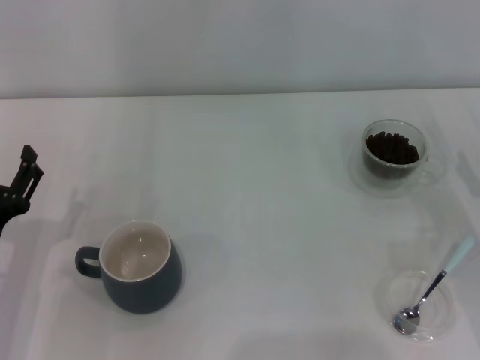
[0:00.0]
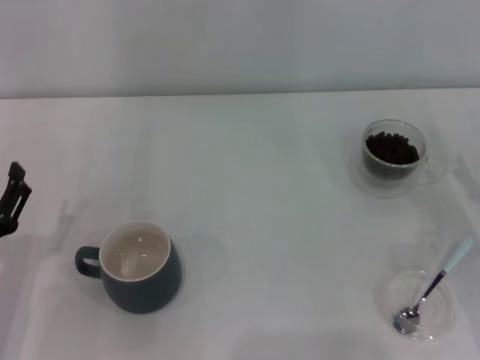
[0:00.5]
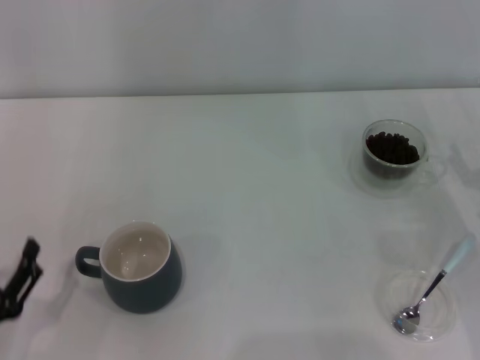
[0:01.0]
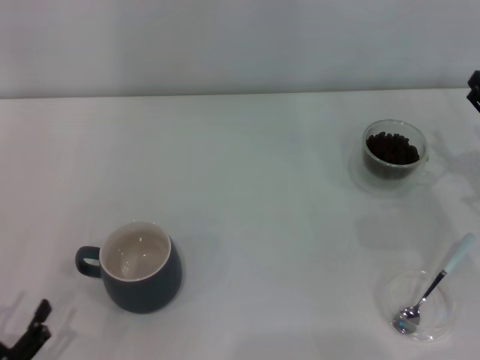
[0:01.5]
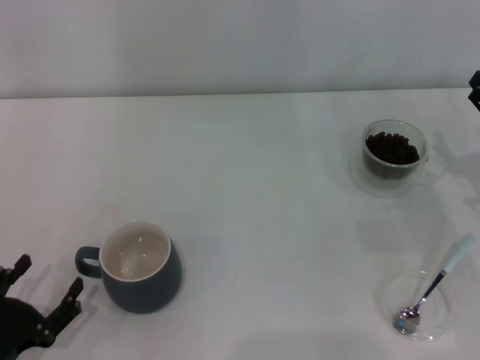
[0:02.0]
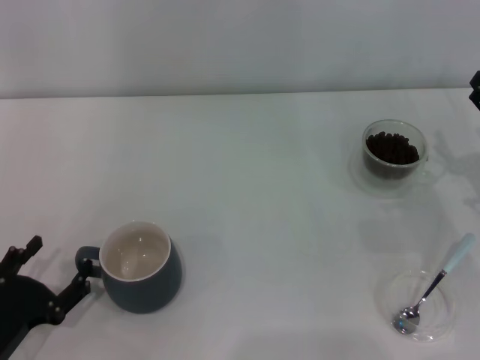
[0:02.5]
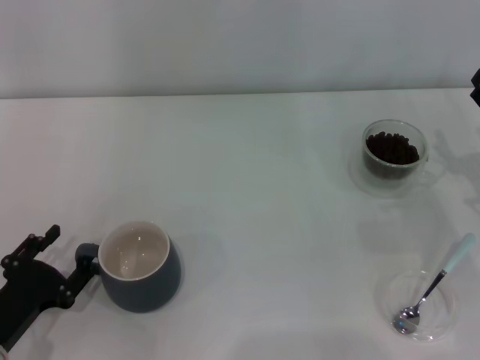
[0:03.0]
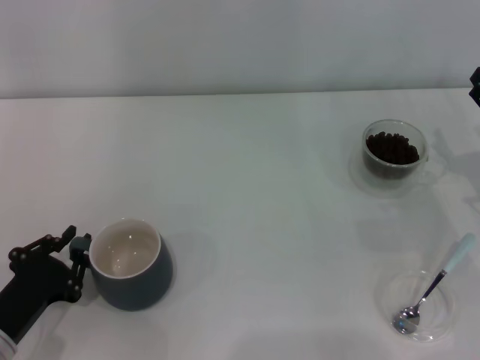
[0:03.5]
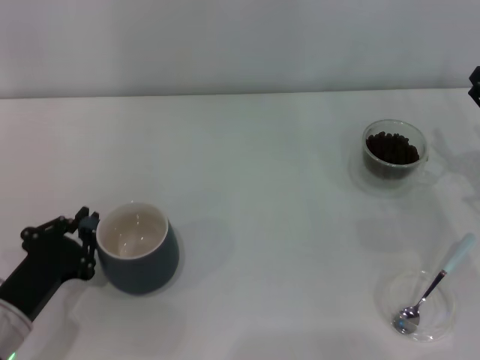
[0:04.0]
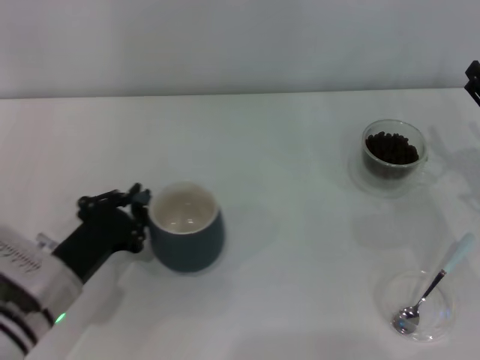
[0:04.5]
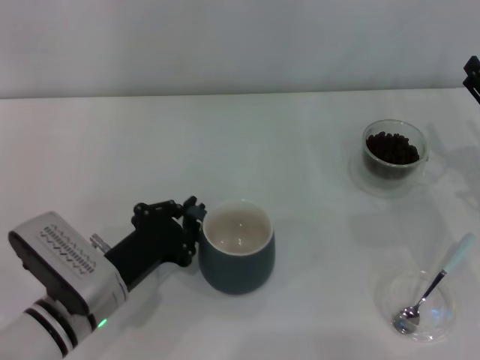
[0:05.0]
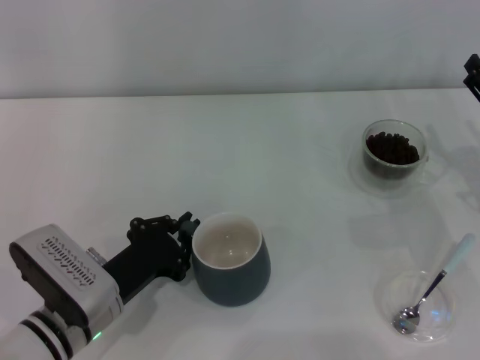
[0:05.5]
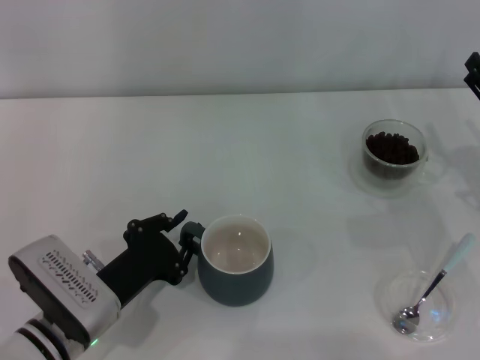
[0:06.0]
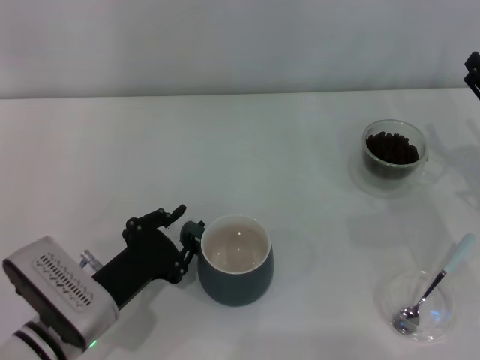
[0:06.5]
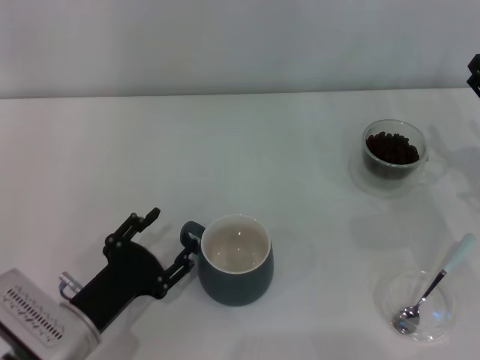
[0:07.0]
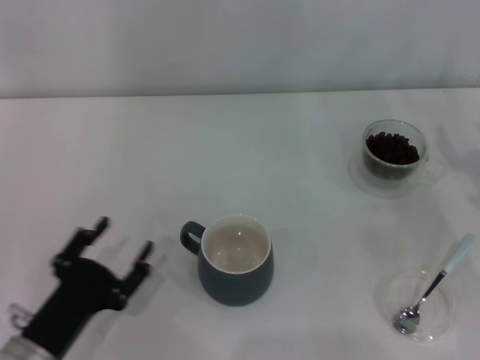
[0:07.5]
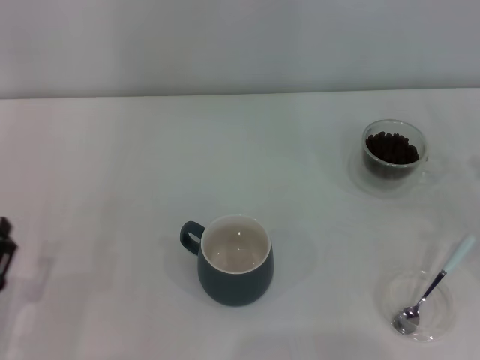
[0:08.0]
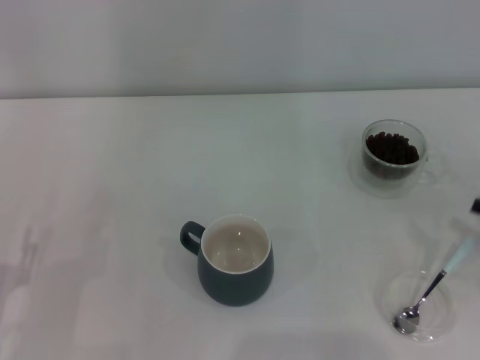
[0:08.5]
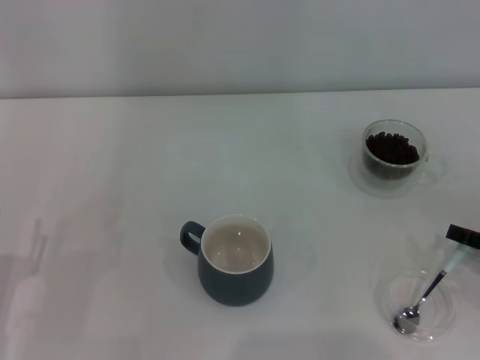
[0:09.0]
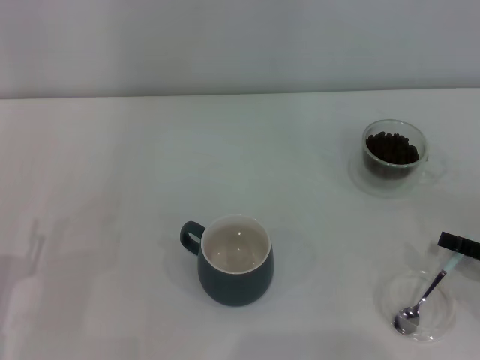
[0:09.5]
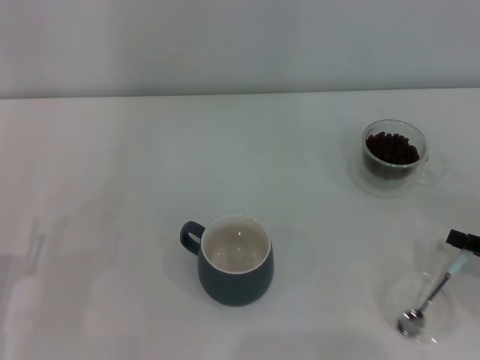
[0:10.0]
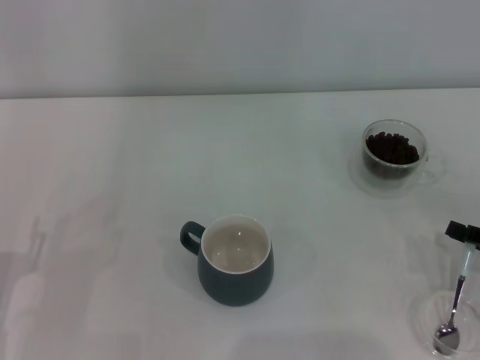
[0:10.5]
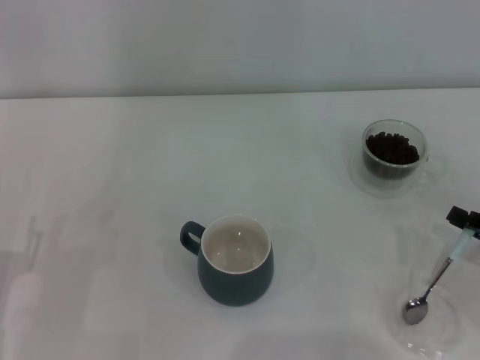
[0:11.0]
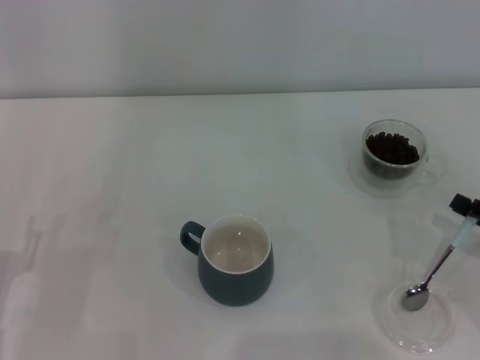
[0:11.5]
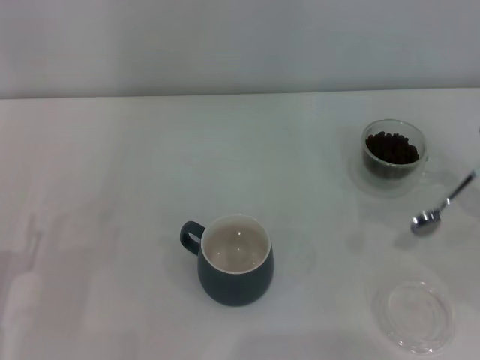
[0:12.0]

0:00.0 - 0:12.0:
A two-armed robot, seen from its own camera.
Task of the whole recording: Use a blue spoon to take out the coffee beans from the glass and pour them into the gray cup.
Step, 0:00.0 - 0:07.0: Move the cup to the center of view with the left gripper.
Step, 0:07.5 - 0:11.5: Pick up the spoon with the right gripper.
0:00.0 - 0:02.0: The left gripper travels backward by about 10 cm.
0:02.0 - 0:04.0: The left gripper is displaced forward by approximately 5 cm, and closes its fingers.
0:04.0 - 0:06.0: The left gripper travels to the right by roughly 10 cm.
0:06.0 - 0:08.0: The right gripper heads to the right and backward, covering some 10 cm. The left gripper is displaced to the left and backward by some 15 cm, and opens up.
0:08.0 - 0:10.0: The right gripper heads downward, covering about 5 cm, and closes up.
0:10.0 - 0:12.0: The right gripper shifts by some 5 cm.

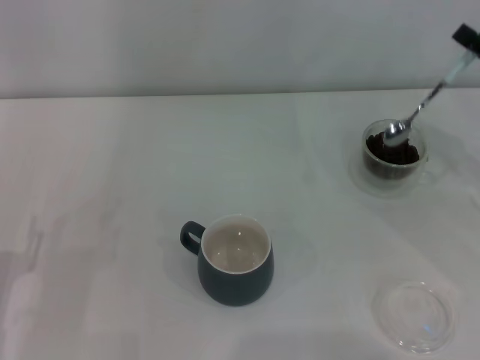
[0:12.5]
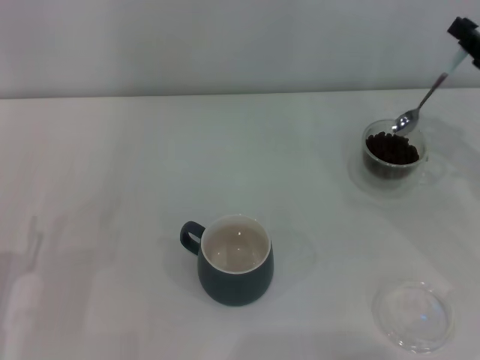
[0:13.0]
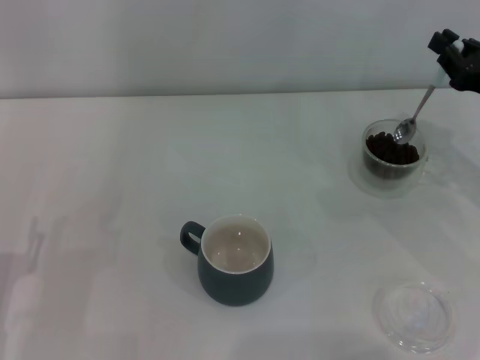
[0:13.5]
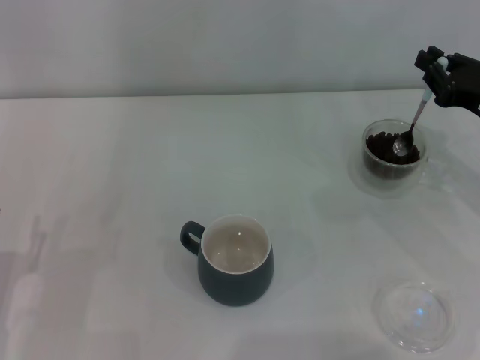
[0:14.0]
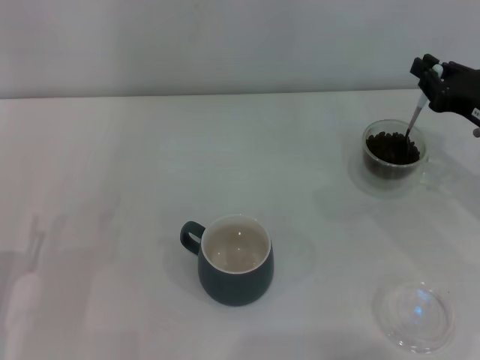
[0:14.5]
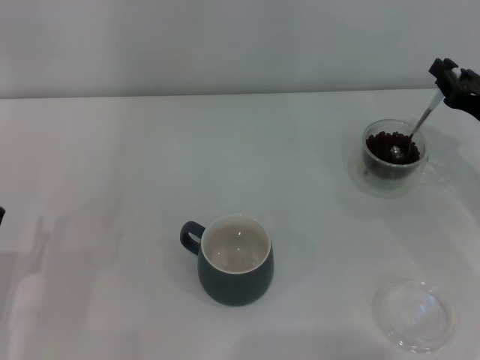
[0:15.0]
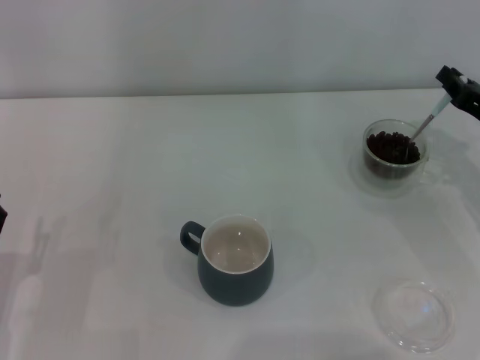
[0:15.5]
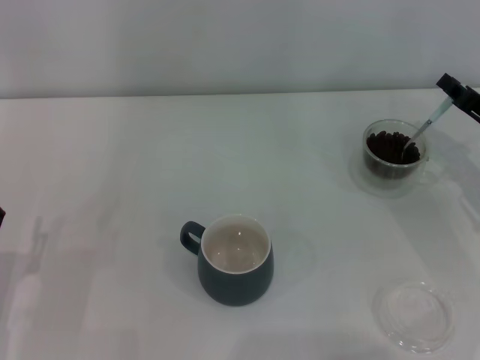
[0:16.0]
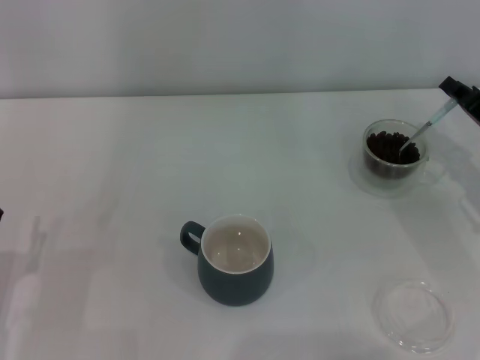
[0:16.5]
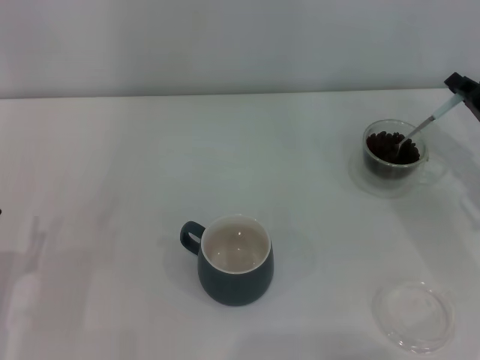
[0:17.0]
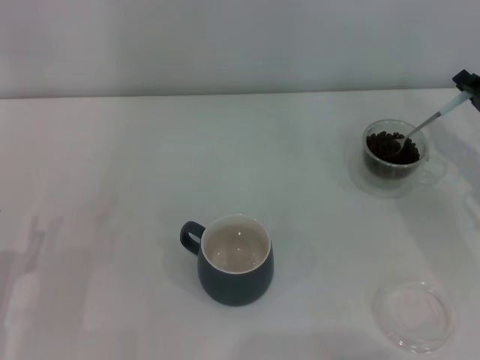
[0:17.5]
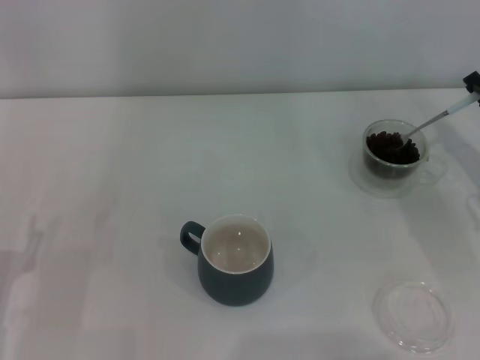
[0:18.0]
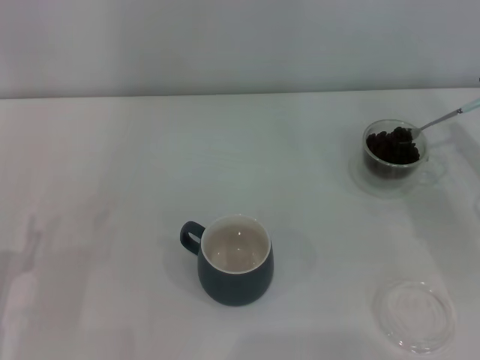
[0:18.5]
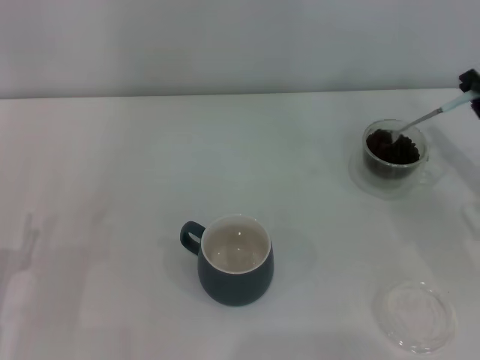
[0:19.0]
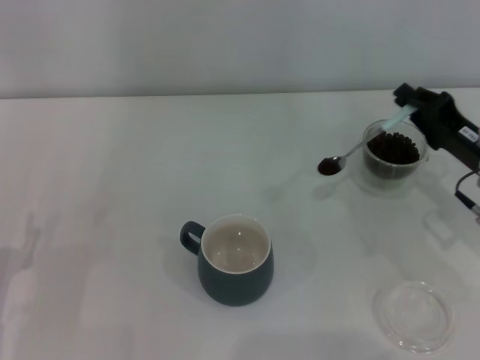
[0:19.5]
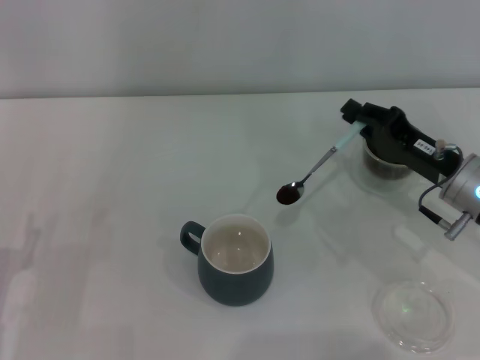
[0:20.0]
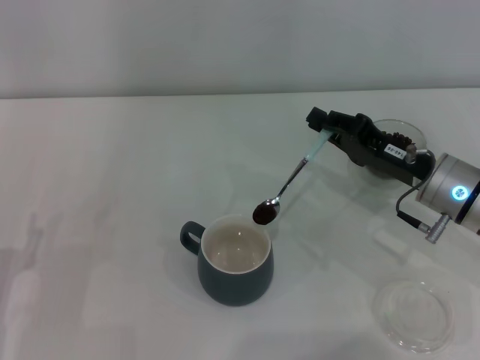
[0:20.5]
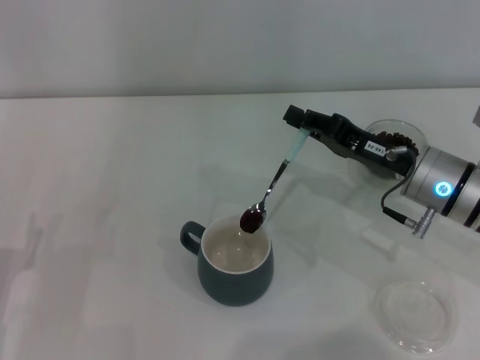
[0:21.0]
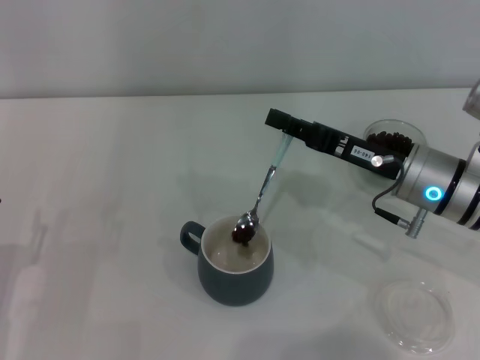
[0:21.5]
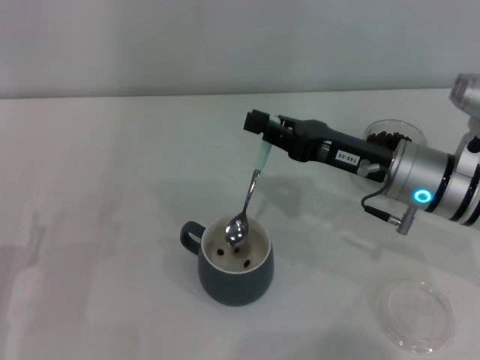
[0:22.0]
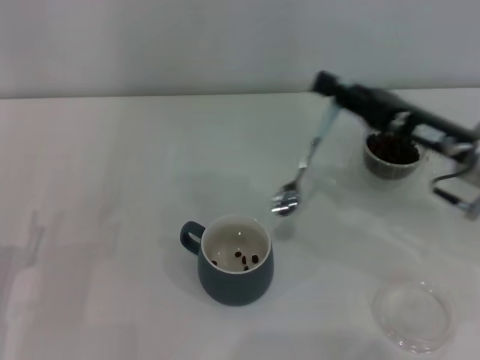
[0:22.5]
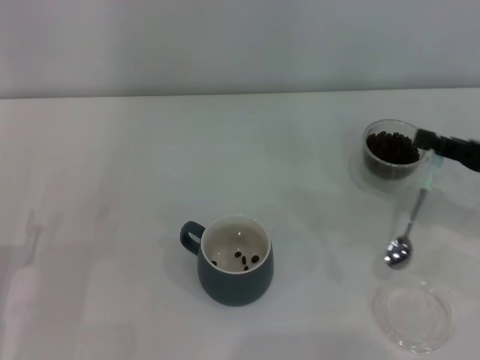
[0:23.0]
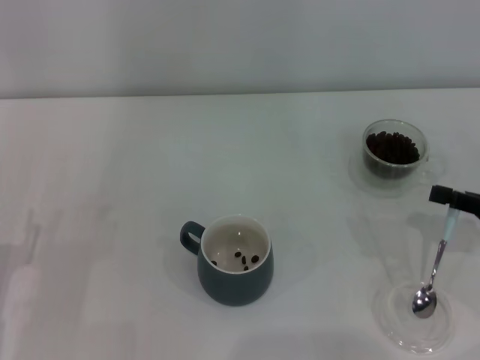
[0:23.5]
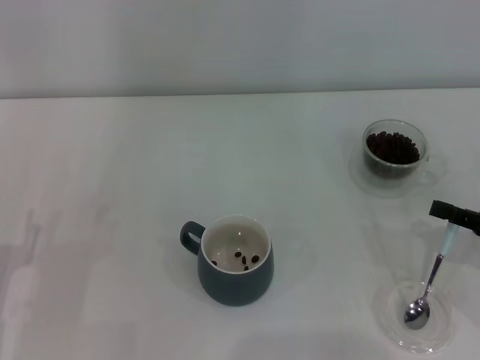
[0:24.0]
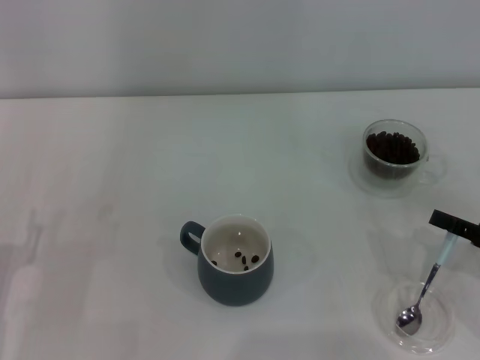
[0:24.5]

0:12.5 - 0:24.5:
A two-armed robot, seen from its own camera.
Task of the whole recording: Use a blue spoon to take out the coffee beans from the glass and pour them into the gray cup.
Step, 0:12.5 - 0:21.5: Scoop a spoonful of beans into the cup with the right gripper.
0:18.5 - 0:20.5: The right gripper is displaced to the left by about 10 cm.
0:20.5 - 0:22.5: The right gripper heads upward, covering roughly 5 cm.
0:22.5 - 0:24.5: The right gripper goes about 15 cm to the right, backward and downward.

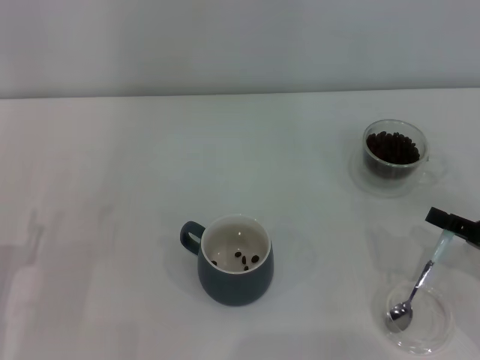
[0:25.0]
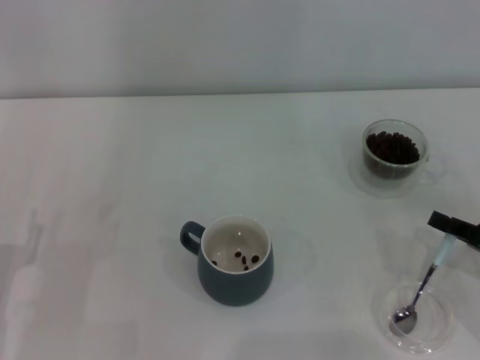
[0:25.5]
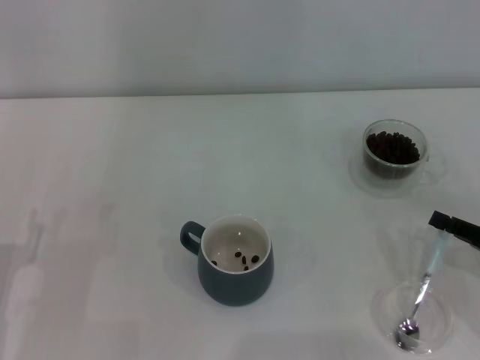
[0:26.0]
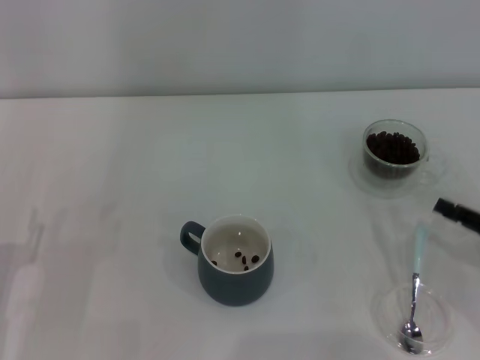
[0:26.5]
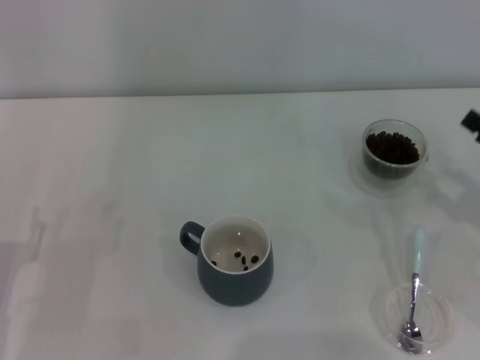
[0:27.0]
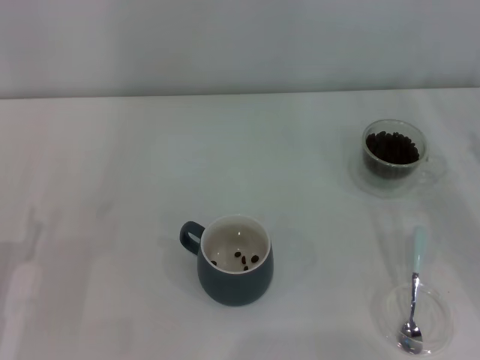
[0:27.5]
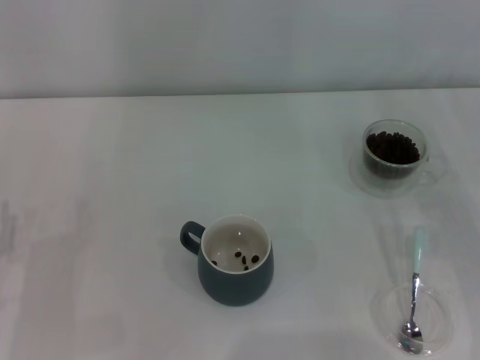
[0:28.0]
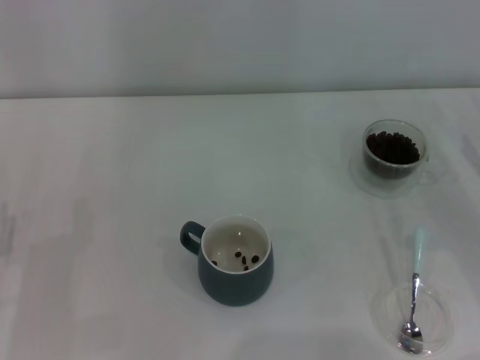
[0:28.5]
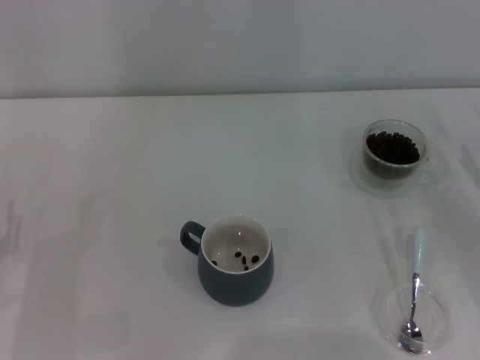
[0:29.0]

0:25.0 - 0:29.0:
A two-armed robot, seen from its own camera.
Task of the whole recording: Use a blue spoon to take out the coffee beans from the glass and pour them into the gray cup.
0:25.0 - 0:27.0: The right gripper opens its fingers.
